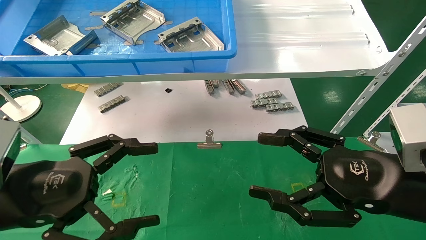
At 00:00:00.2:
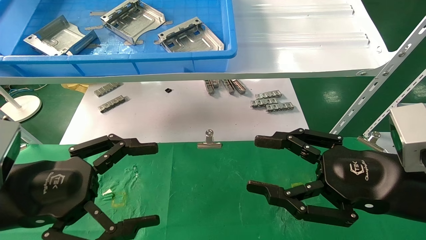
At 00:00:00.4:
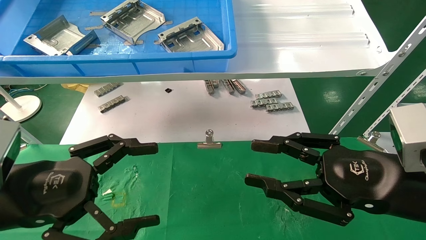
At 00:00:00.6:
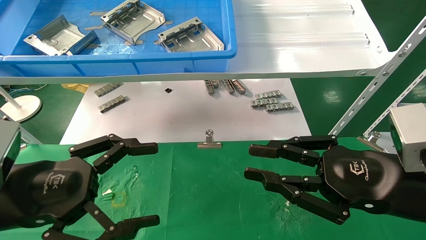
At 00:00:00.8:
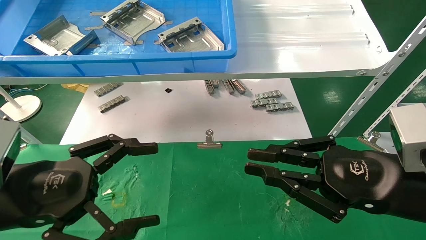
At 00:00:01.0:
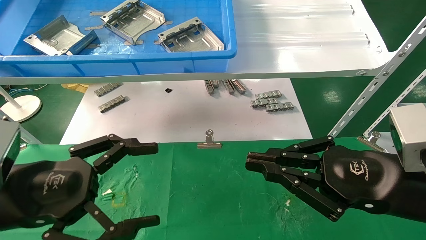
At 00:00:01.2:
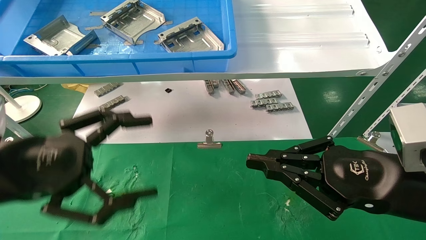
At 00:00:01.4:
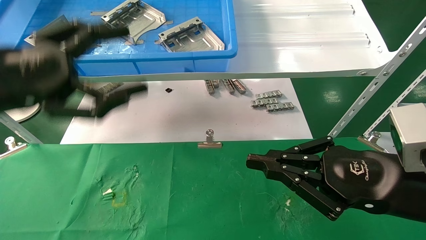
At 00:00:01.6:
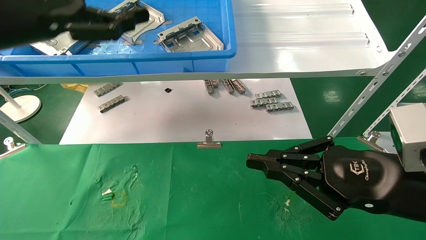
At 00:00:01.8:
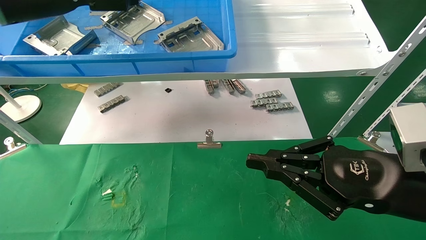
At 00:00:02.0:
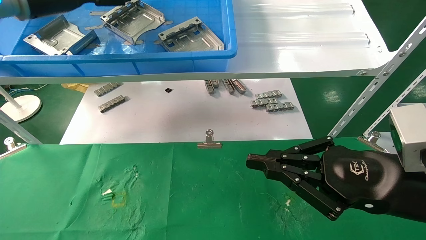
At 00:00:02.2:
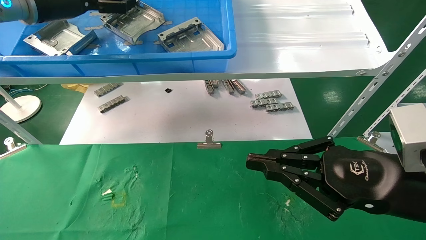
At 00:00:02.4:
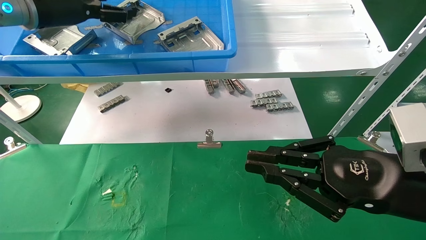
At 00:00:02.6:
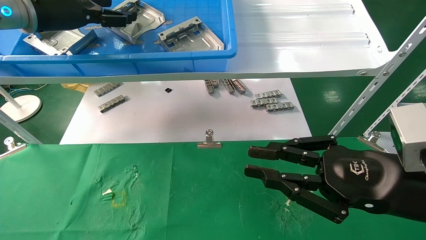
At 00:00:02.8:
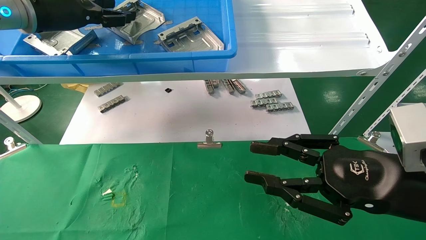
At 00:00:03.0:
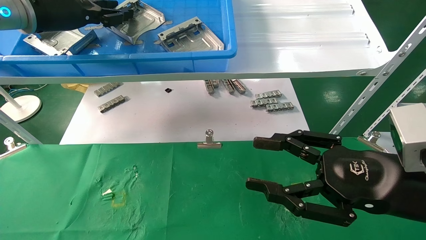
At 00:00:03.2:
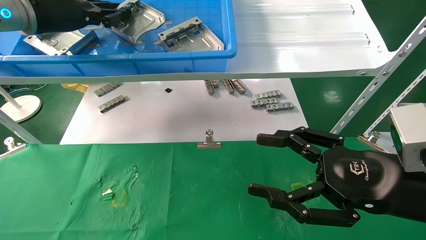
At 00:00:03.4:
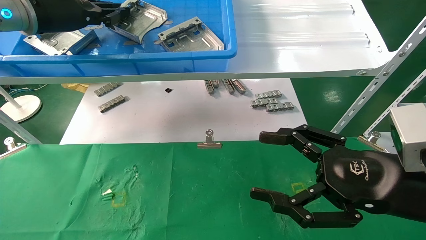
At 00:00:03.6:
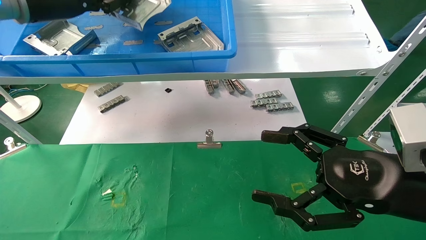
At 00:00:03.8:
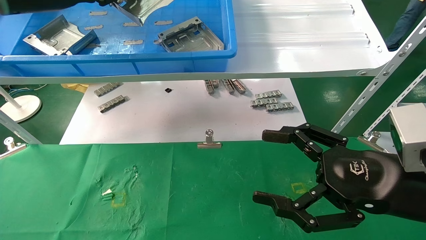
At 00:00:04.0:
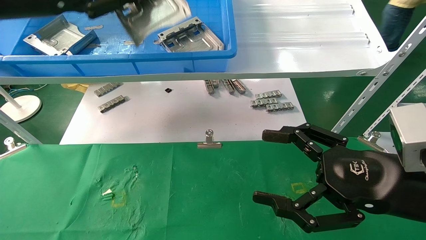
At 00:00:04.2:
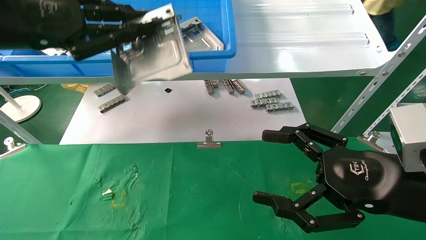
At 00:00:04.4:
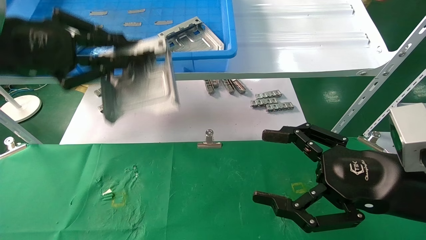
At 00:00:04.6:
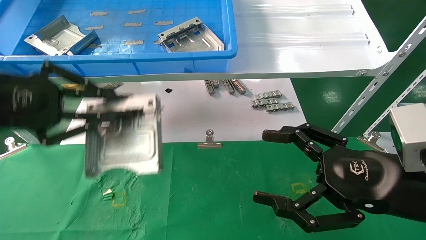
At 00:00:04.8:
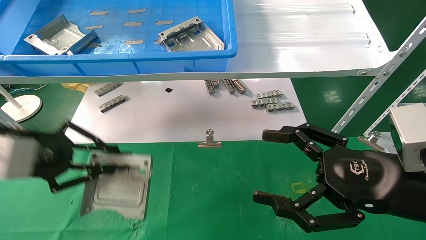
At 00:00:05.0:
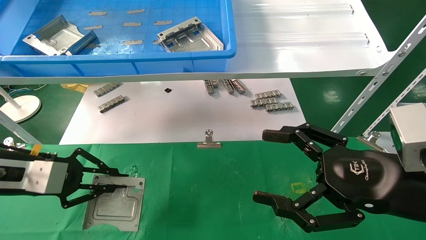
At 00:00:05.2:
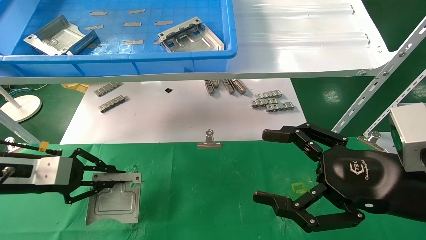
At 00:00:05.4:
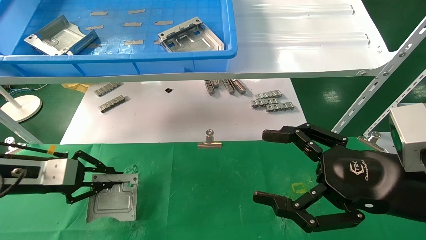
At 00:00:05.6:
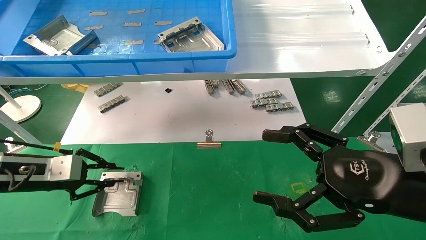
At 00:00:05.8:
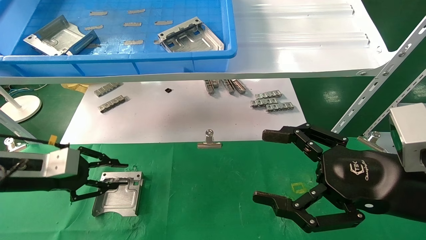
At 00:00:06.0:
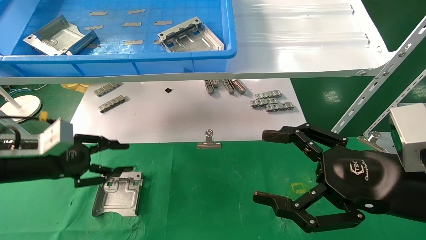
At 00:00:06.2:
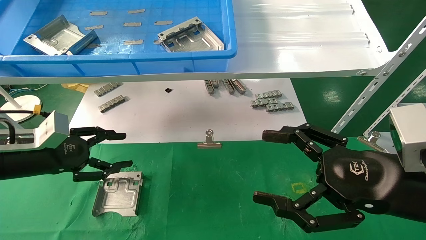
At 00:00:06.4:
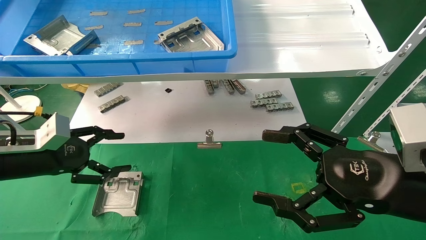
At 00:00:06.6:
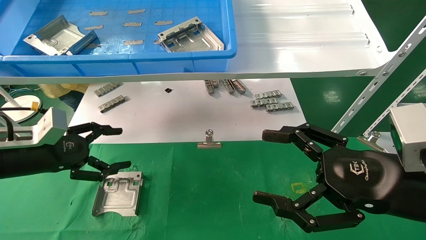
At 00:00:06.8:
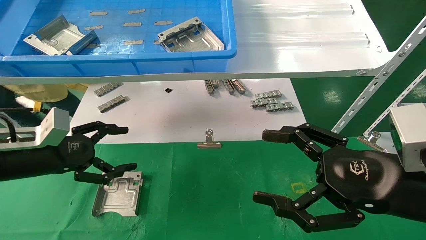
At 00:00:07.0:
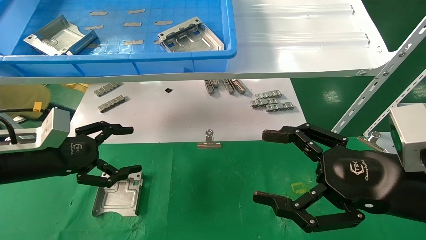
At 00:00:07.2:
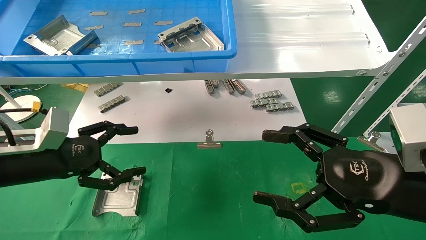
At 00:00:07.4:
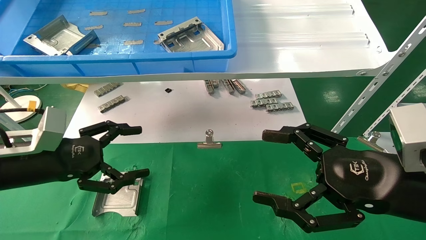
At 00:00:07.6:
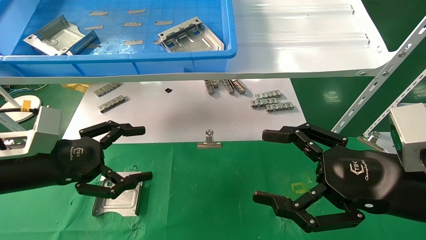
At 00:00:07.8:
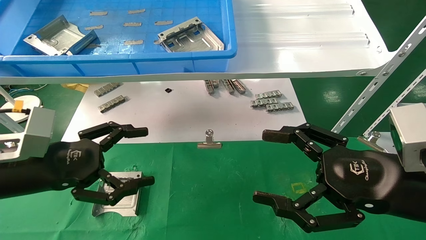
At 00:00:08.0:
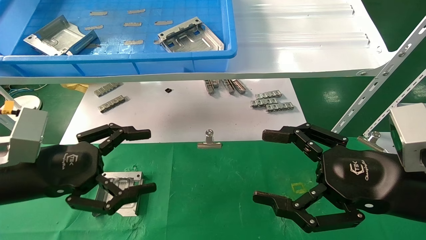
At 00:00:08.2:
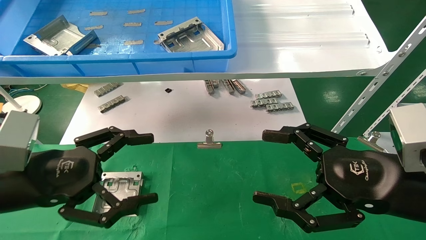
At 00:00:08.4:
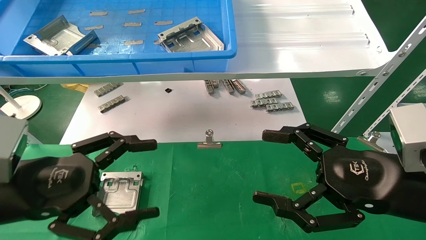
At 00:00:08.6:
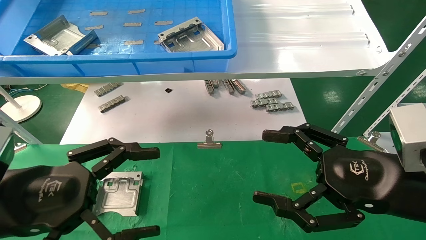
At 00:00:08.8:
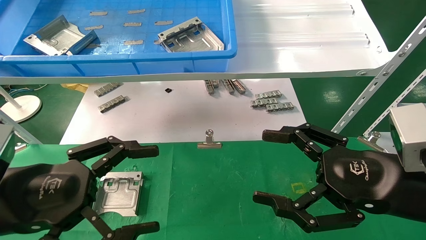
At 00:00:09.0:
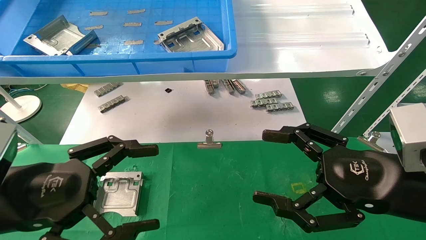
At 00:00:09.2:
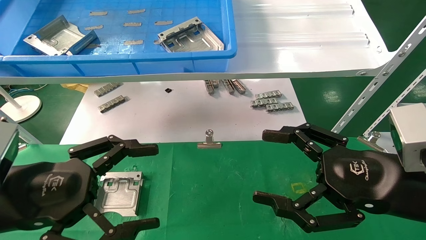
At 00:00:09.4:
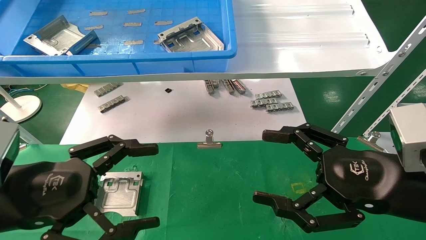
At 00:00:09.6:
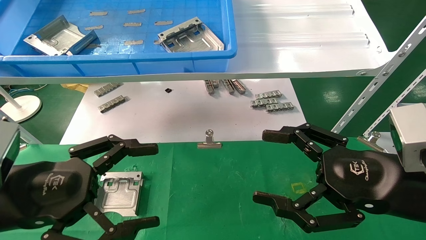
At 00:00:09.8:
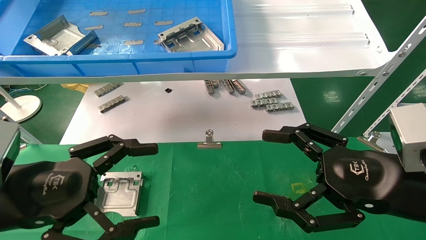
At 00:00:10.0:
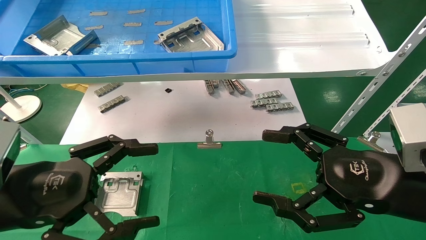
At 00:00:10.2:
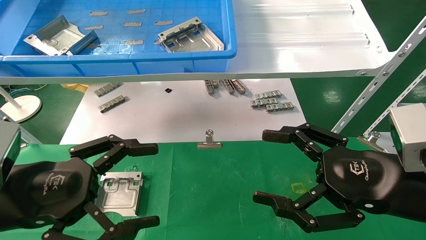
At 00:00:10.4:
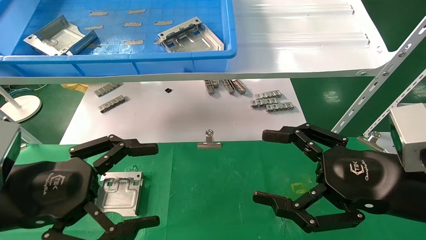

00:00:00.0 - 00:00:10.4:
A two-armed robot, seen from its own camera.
Task of the whole recording: use the mechanical arm to pick up the parts and place them on the table.
Step, 00:00:01.4 - 00:00:03.2: Pick up the hard drive bracket from the feeding area.
Step, 00:00:03.4 - 00:00:06.0: Place the hard drive bracket into the box.
00:00:00.0 - 00:00:01.4: The right gripper closes its fingers. Meanwhile the left gripper moves upward and forward, approximately 15 cm.
00:00:01.4 - 00:00:03.0: The right gripper opens up. The left gripper is displaced forward and upward by approximately 20 cm, and closes its fingers.
00:00:03.0 - 00:00:04.4: The right gripper opens up. The left gripper goes about 15 cm backward, and closes up.
00:00:04.4 - 00:00:06.0: The left gripper travels downward by some 20 cm.
00:00:06.0 - 00:00:07.4: The left gripper moves some 5 cm, and opens up.
00:00:07.4 - 00:00:09.0: The left gripper travels backward by roughly 10 cm.
00:00:09.0 - 00:00:10.4: The two grippers keep their place.
